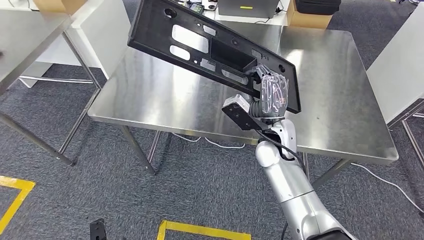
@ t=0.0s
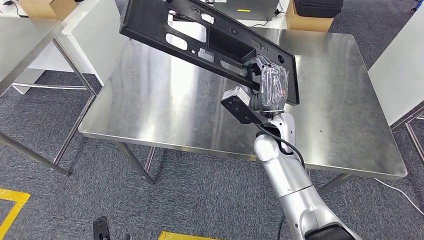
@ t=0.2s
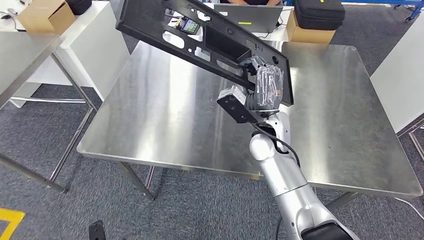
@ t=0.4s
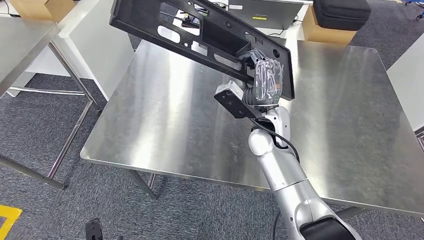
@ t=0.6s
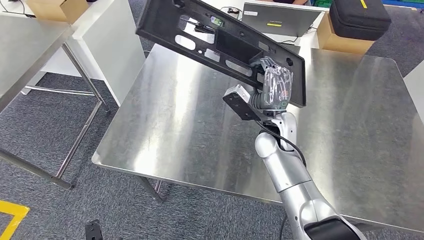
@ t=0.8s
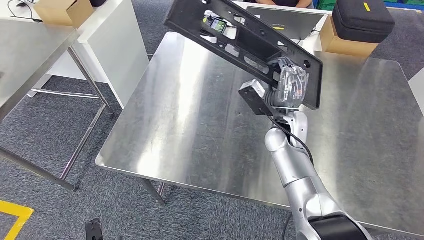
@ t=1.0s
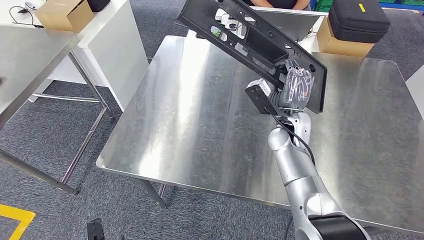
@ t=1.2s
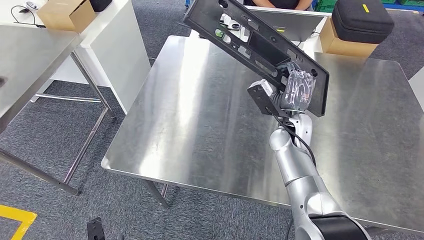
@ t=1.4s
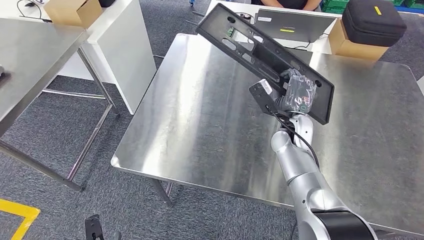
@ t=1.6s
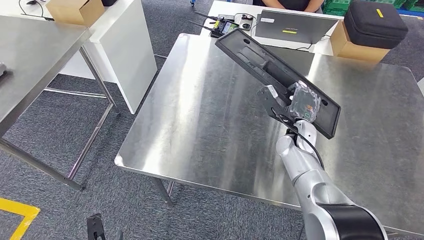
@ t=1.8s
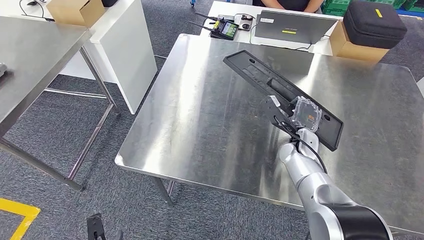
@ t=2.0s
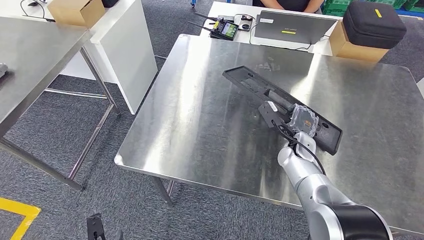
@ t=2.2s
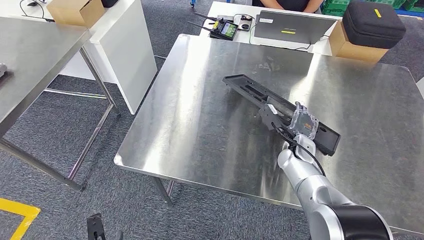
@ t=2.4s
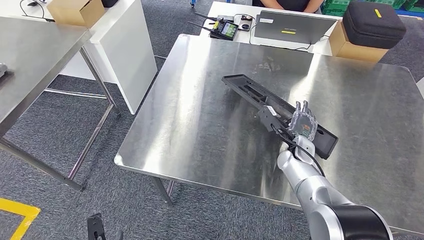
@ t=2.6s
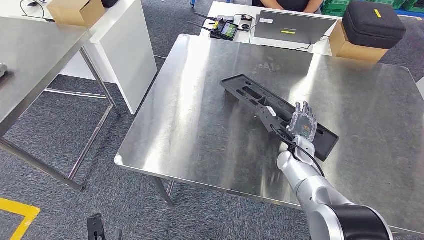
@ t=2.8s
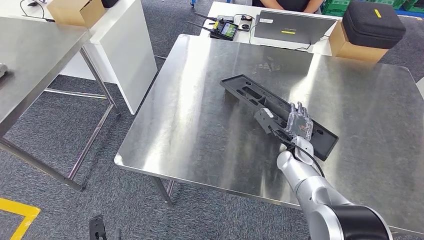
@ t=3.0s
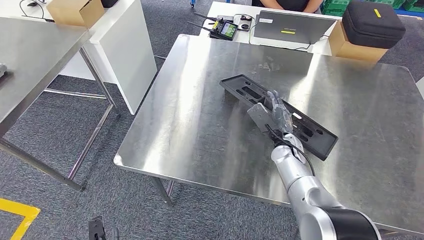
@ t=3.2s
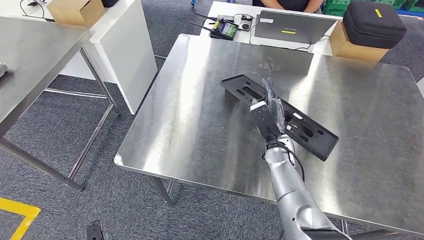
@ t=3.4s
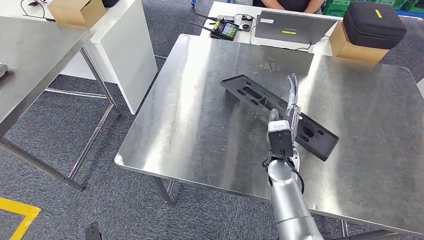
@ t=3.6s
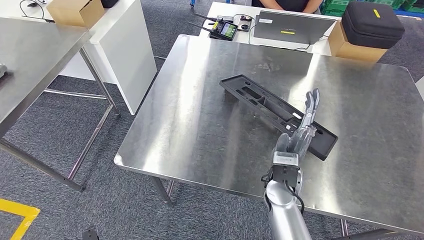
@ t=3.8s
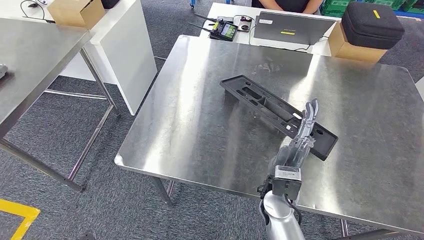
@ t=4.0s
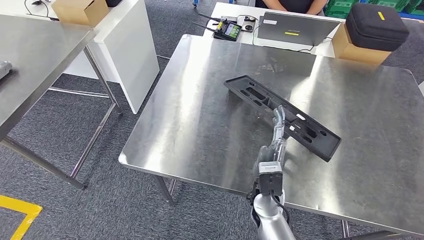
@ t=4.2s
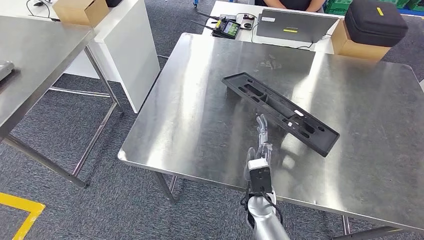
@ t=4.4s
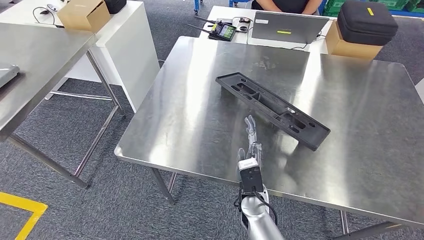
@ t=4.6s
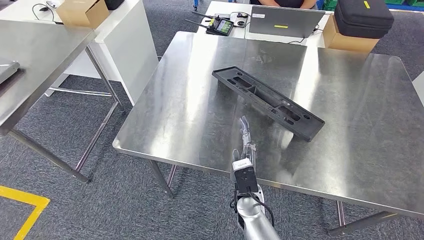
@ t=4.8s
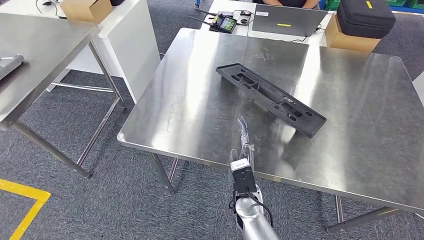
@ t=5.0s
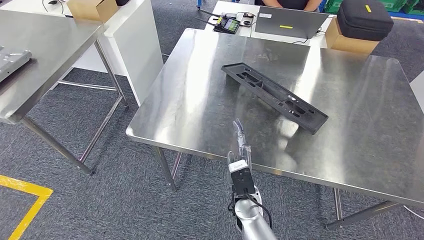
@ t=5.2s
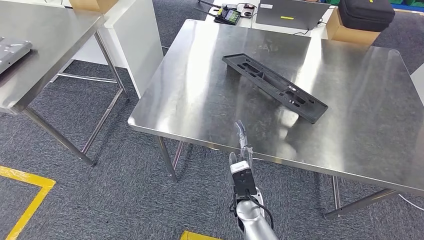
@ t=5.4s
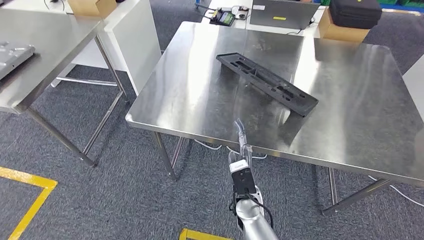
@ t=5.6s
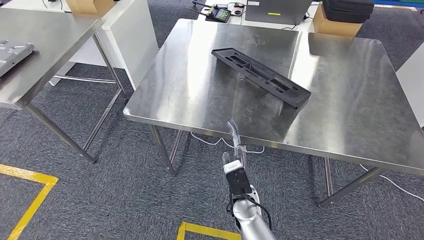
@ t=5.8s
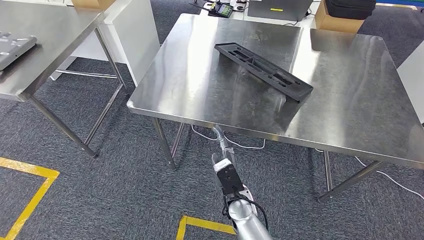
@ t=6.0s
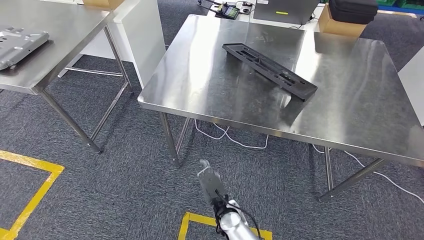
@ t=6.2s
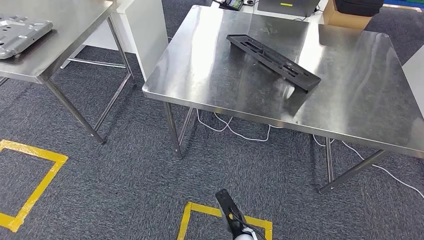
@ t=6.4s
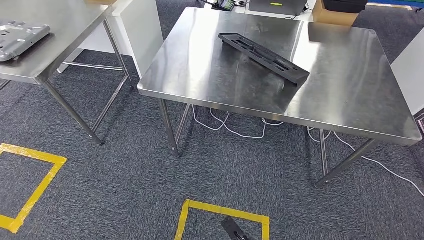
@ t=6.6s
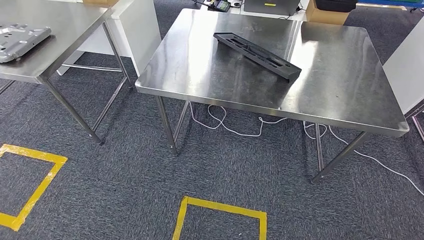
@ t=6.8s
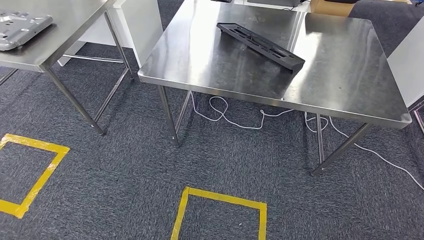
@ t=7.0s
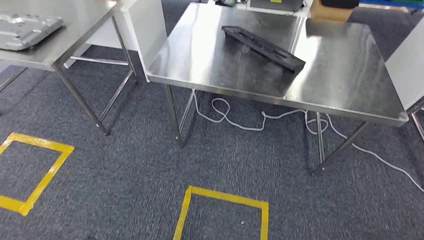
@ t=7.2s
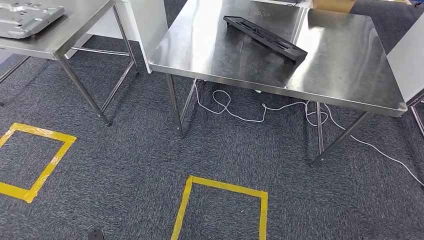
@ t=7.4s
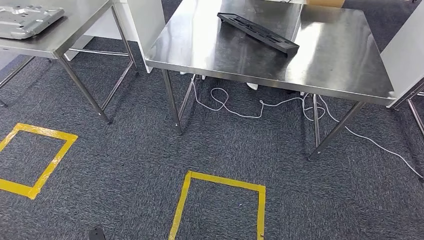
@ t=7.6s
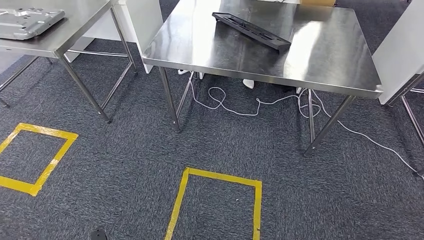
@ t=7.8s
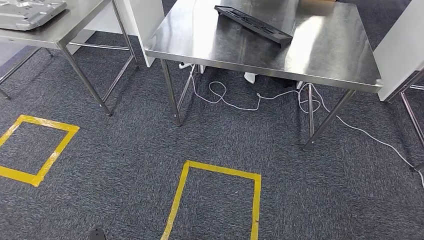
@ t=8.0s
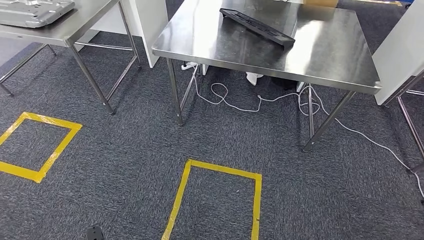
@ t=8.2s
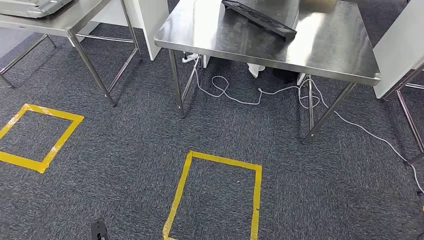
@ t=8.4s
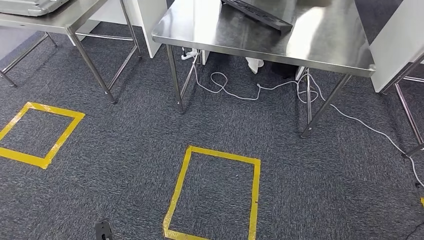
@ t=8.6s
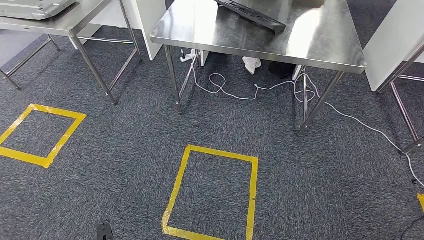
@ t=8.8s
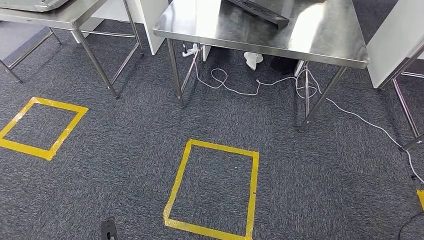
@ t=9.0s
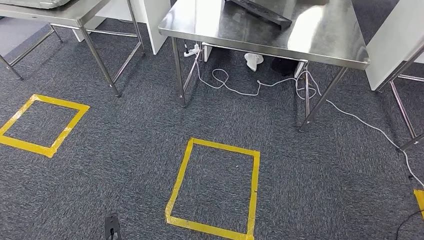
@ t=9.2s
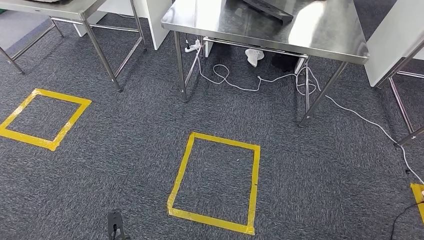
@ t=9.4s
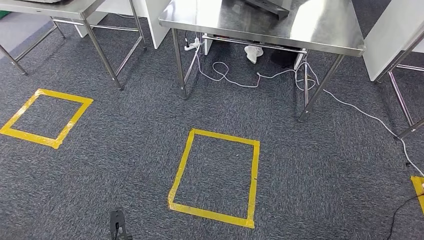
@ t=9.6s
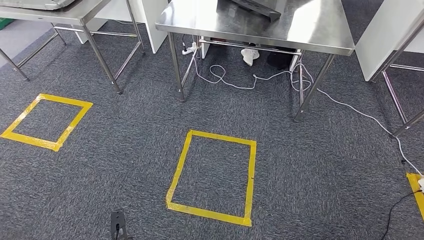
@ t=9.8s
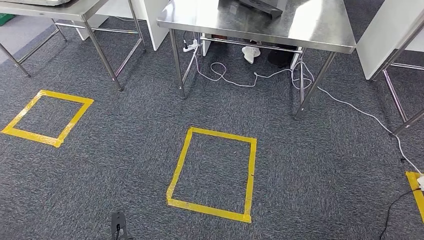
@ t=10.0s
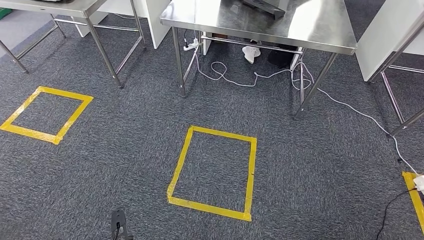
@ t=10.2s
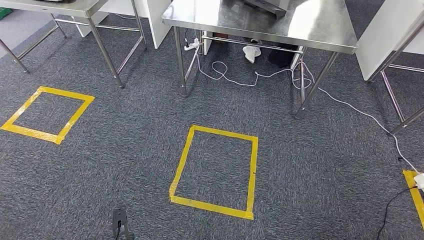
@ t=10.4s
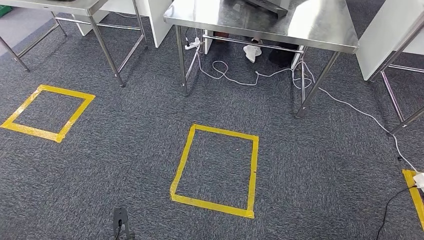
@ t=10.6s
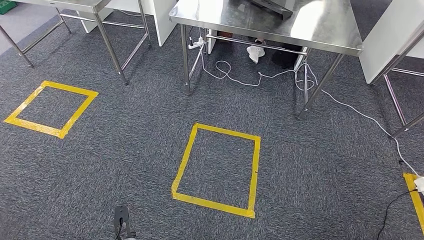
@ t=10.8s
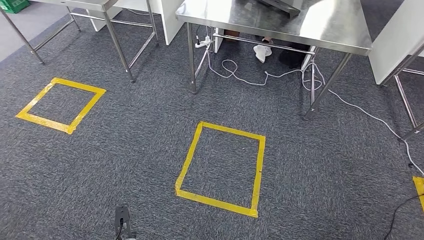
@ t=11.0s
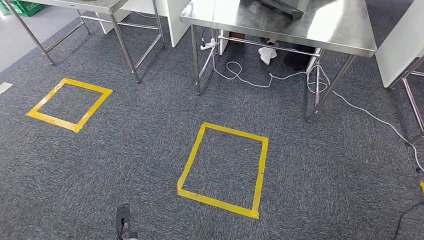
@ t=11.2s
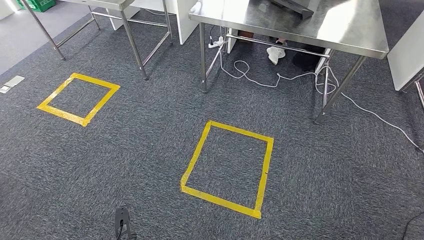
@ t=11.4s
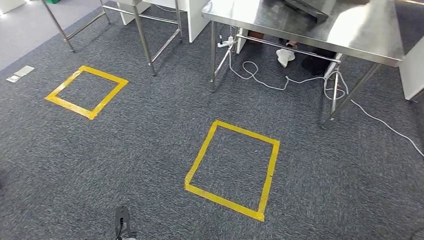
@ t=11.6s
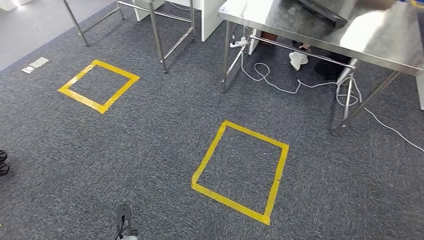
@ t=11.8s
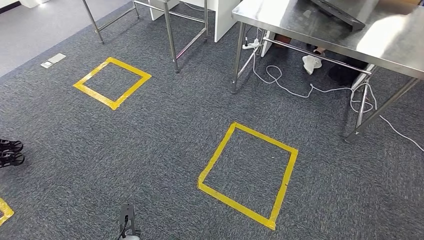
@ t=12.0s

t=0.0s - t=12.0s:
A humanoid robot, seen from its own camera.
Step, t=0.0s - t=8.2s: Insert the large material into the corresponding slot on the workbench.

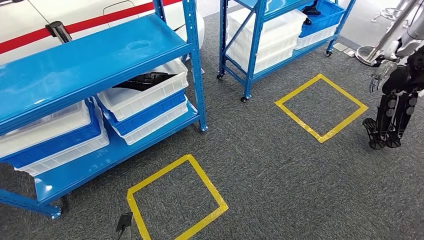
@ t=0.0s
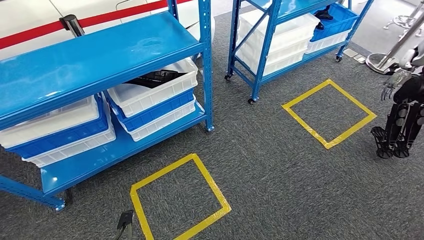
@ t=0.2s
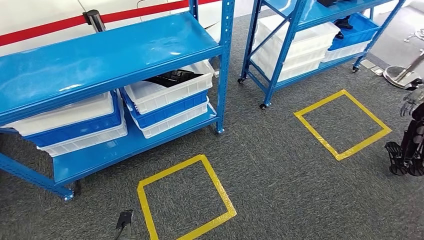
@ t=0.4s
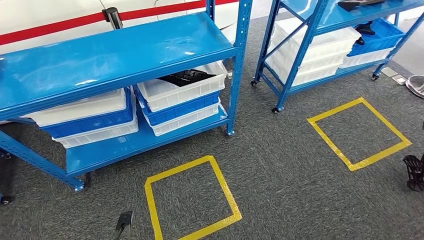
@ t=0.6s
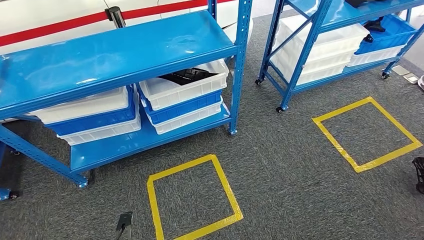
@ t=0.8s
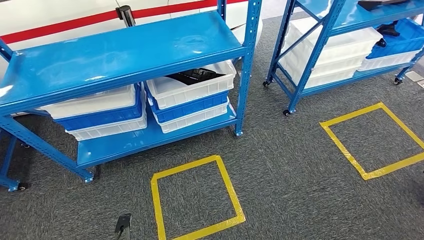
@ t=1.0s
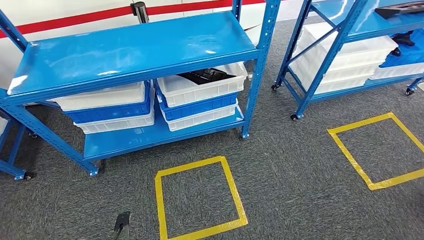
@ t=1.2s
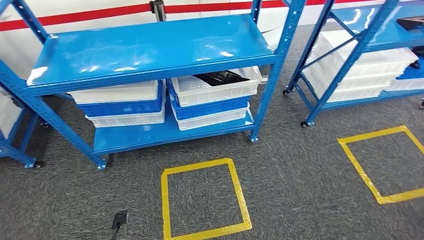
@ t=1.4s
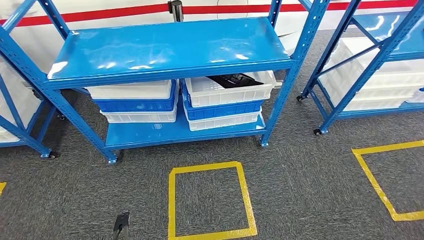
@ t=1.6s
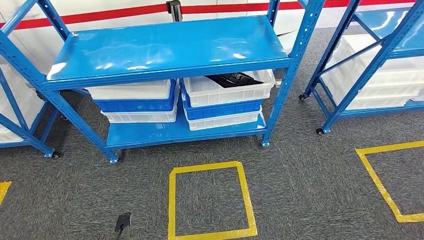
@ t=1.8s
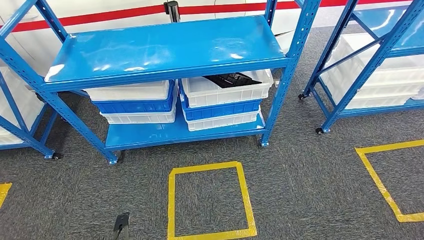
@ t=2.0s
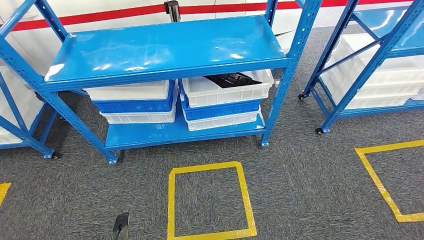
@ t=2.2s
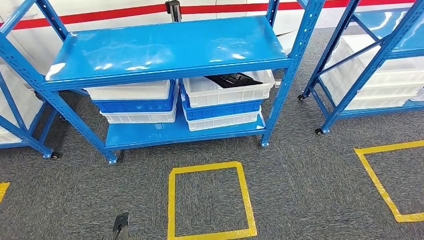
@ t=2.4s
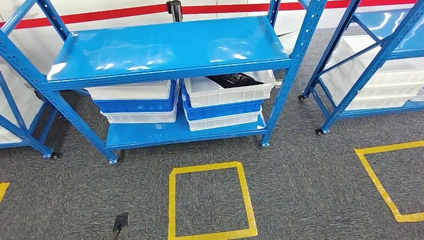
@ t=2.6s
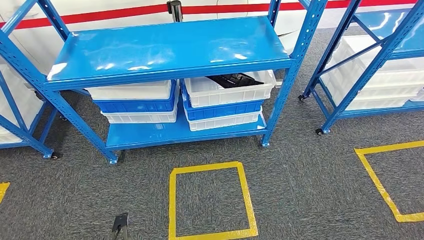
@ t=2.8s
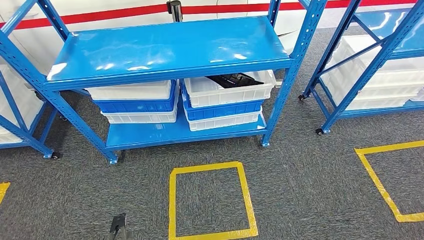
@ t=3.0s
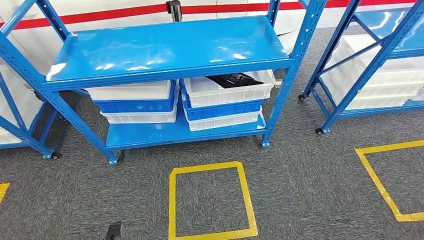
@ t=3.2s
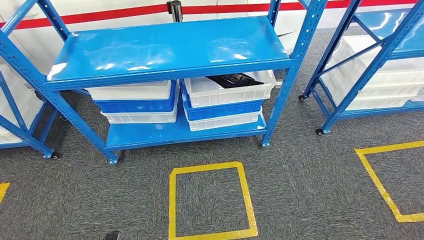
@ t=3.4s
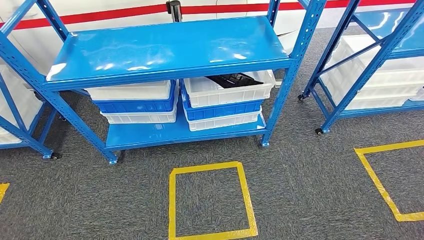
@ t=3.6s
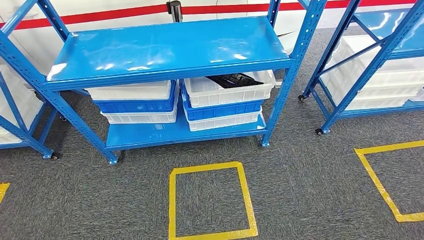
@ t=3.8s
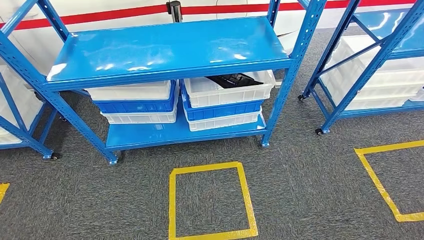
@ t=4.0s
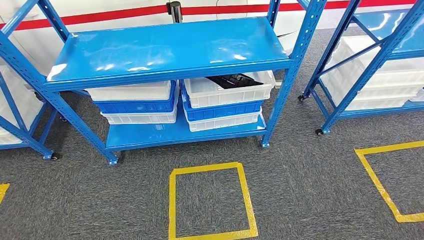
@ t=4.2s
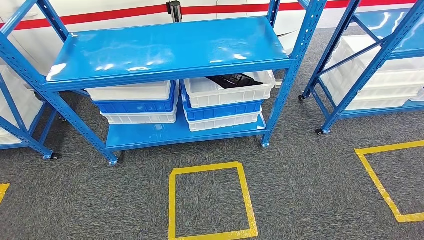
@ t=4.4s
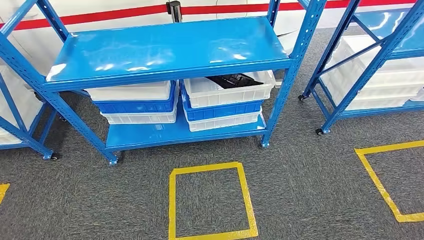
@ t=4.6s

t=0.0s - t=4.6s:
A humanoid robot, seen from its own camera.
Step, t=0.0s - t=4.4s: Move to the initial position of the shelf.
t=1.6s - t=3.0s: Both hands stay about where they are.
t=3.0s - t=4.6s: The left hand shifts about 20 cm backward, while the right hand is displaced to the right and backward by some 10 cm.
